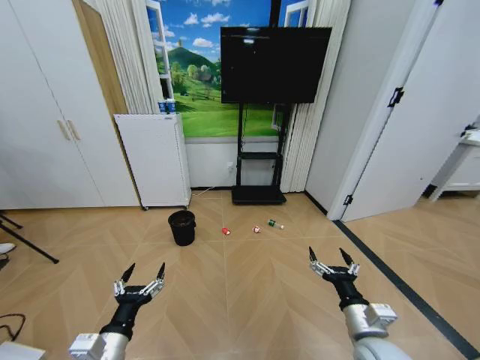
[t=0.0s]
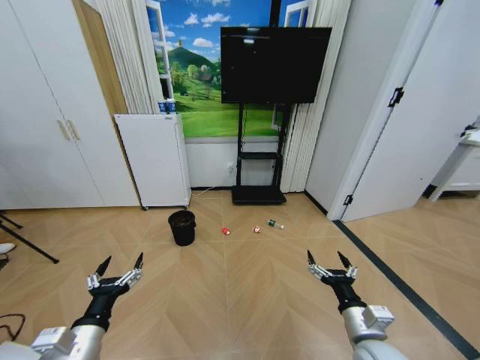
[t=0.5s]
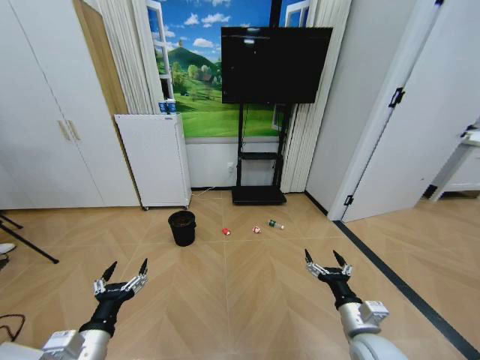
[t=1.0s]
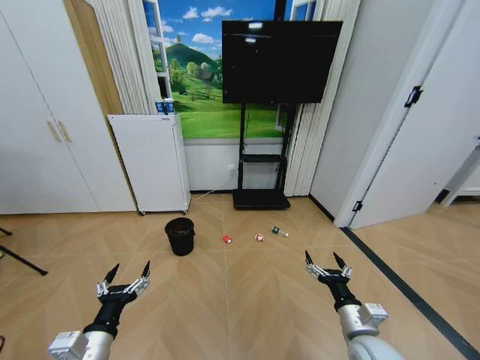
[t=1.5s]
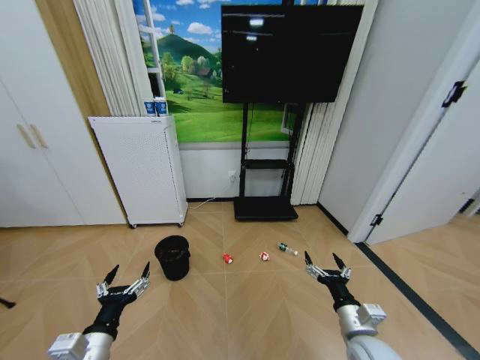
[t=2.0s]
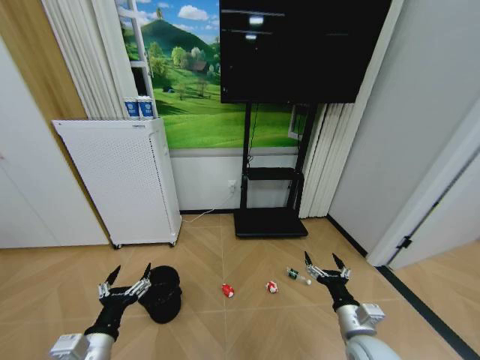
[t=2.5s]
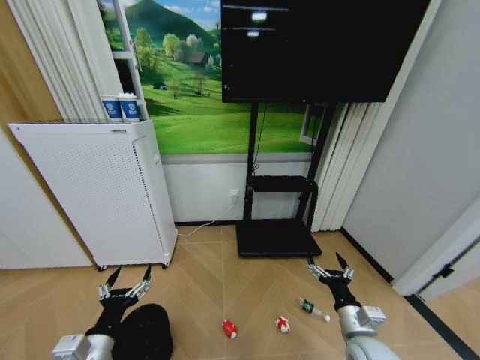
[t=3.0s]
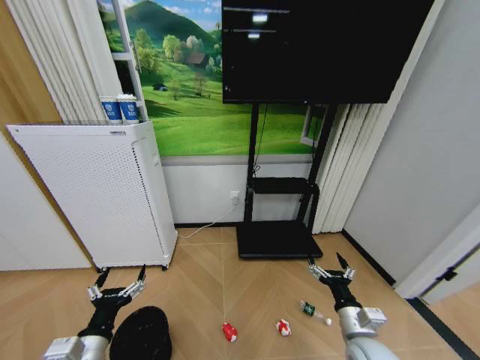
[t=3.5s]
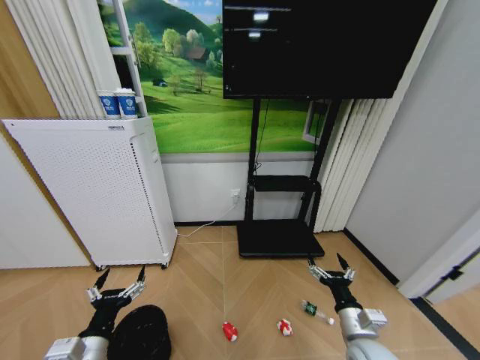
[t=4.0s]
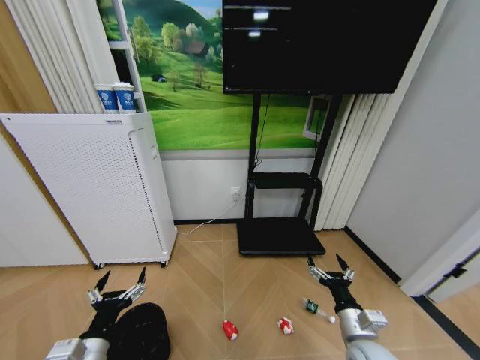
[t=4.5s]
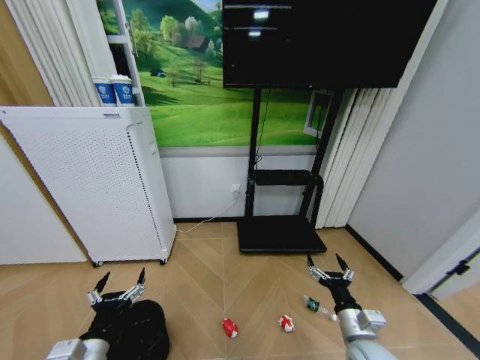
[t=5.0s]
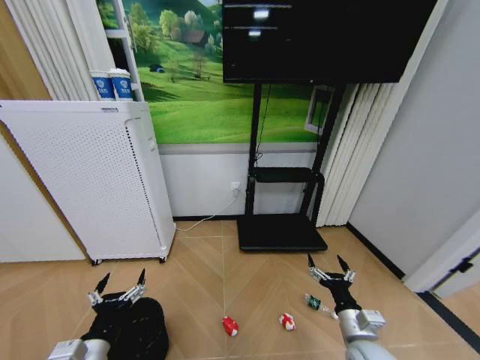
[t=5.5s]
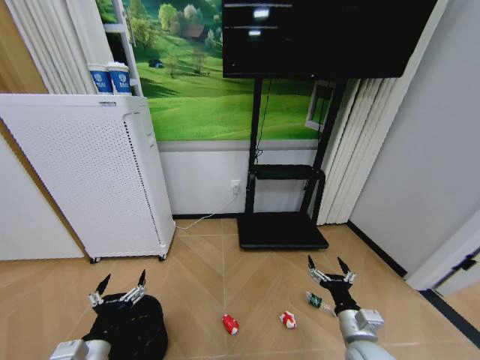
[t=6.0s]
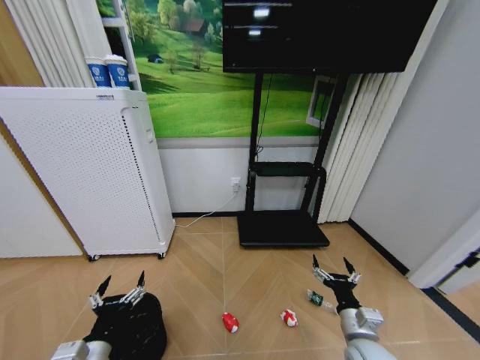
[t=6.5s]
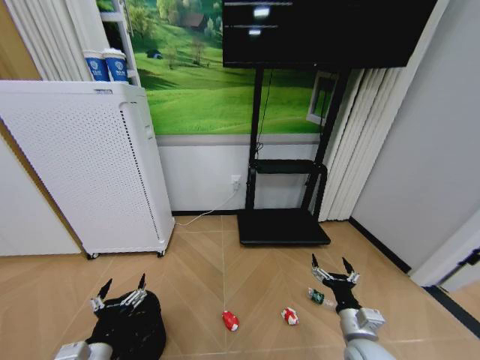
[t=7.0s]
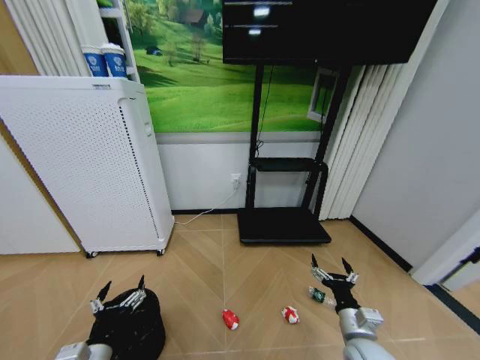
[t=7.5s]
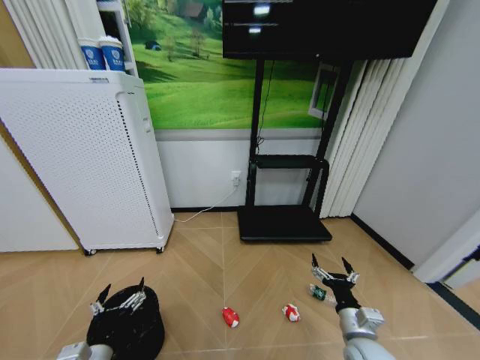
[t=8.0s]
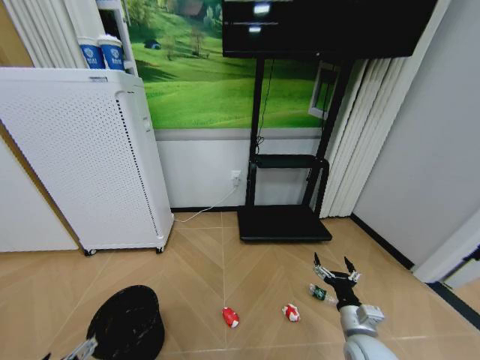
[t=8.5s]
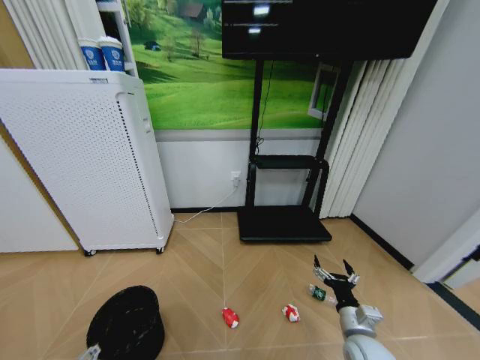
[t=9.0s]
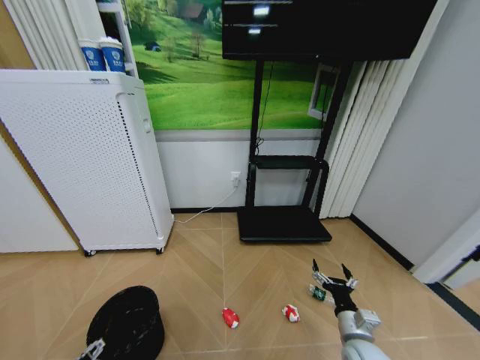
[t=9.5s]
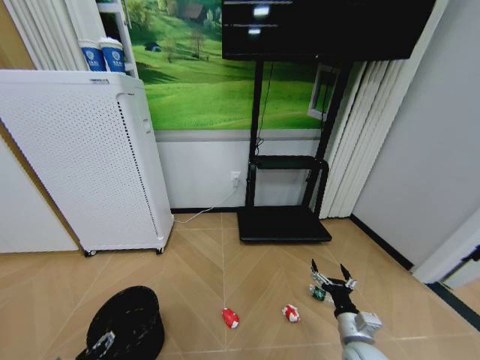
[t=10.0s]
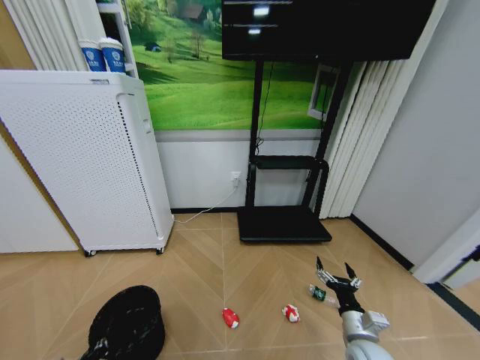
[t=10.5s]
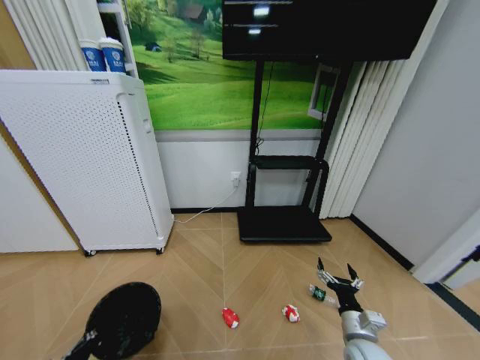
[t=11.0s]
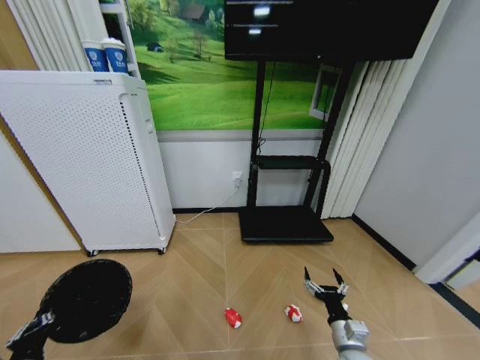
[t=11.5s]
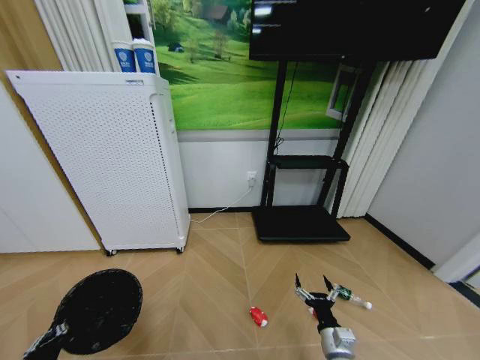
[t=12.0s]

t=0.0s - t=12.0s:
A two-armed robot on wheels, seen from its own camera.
Task of the whole recording: Pick up the trash bin and place the garbage on the floor into it.
t=8.0s - t=10.0s: The left gripper is displaced to the left and downward by roughly 10 cm.
t=10.0s - t=12.0s: The left gripper closes up; the right gripper moves roughly 5 cm.

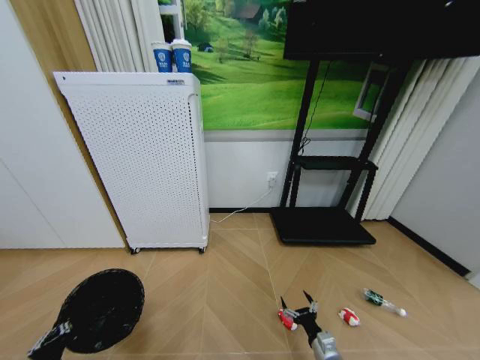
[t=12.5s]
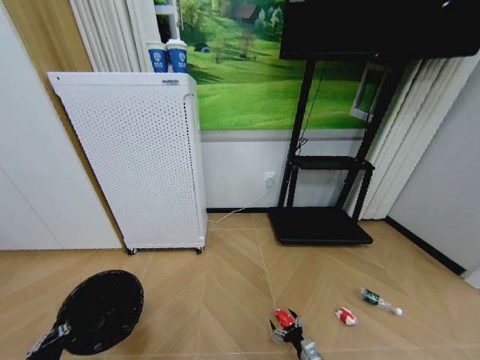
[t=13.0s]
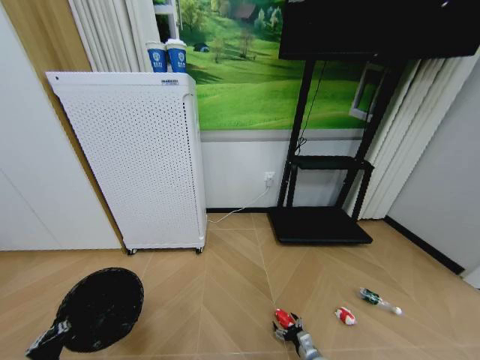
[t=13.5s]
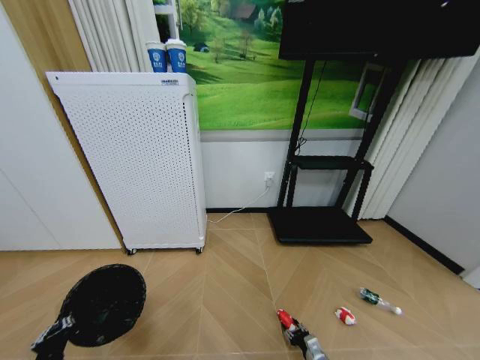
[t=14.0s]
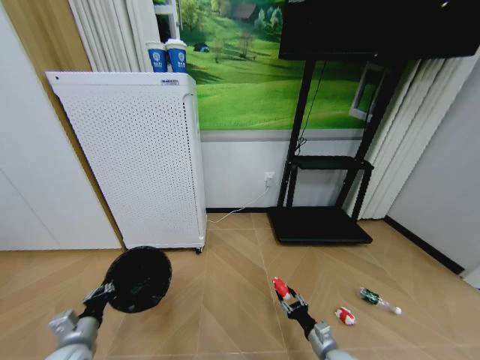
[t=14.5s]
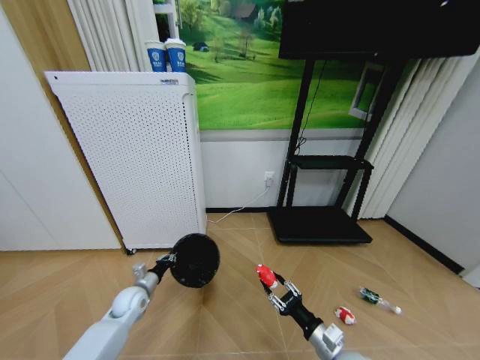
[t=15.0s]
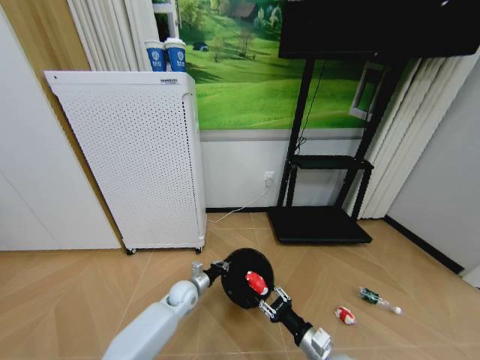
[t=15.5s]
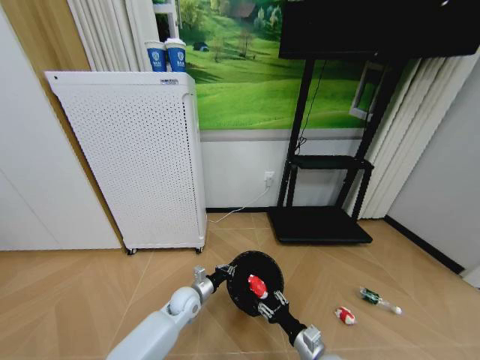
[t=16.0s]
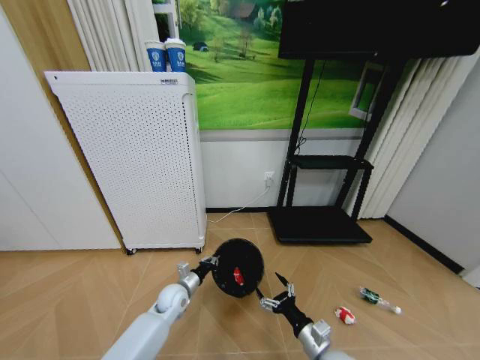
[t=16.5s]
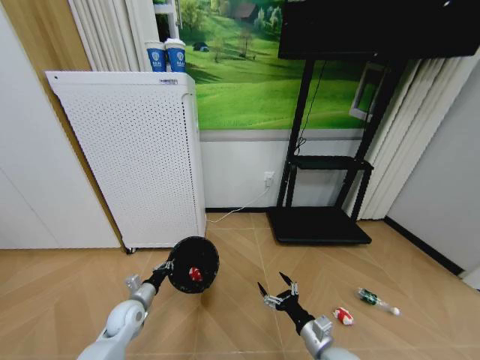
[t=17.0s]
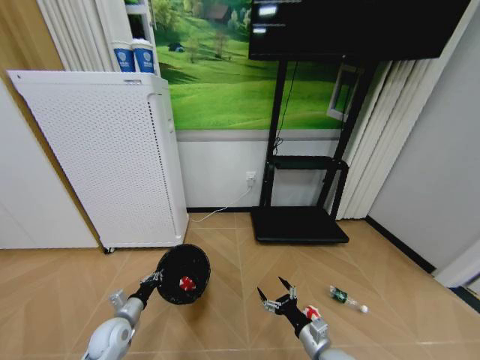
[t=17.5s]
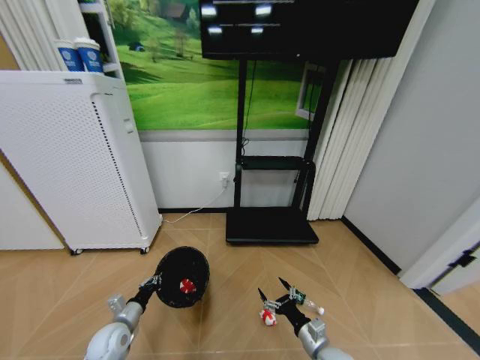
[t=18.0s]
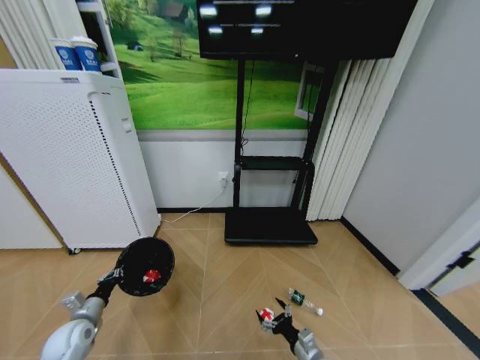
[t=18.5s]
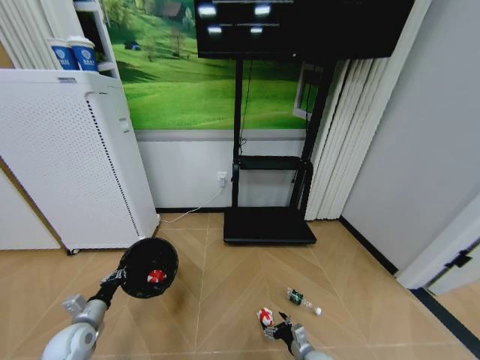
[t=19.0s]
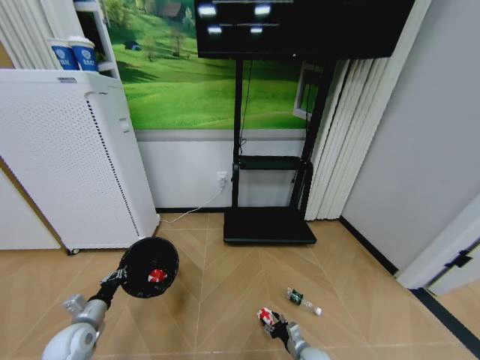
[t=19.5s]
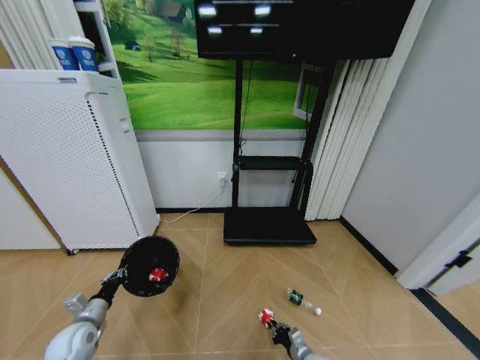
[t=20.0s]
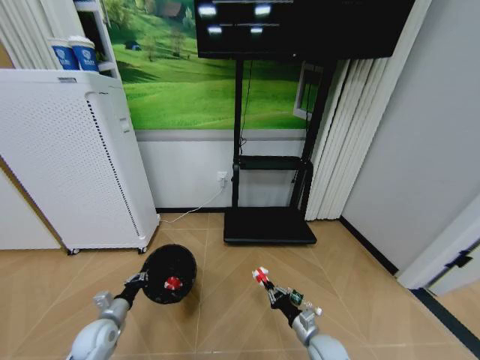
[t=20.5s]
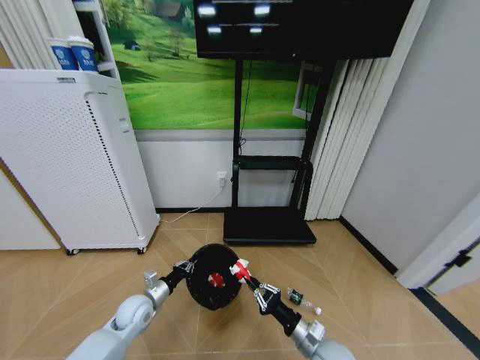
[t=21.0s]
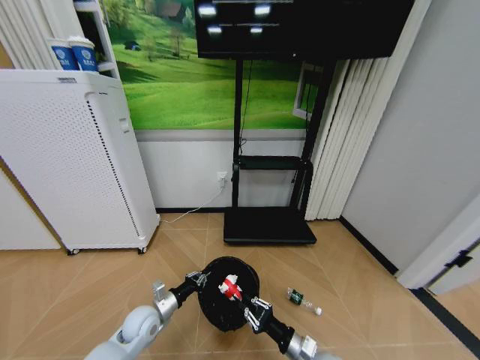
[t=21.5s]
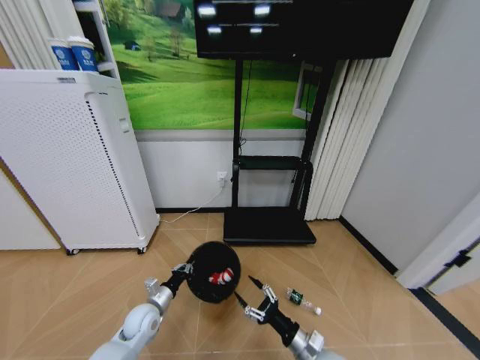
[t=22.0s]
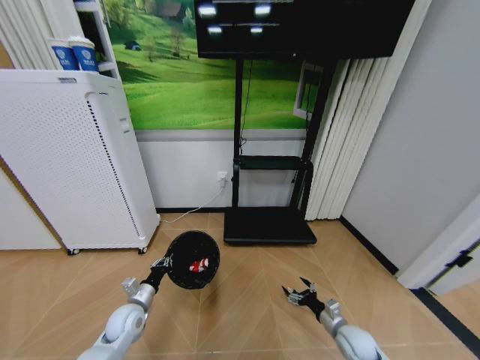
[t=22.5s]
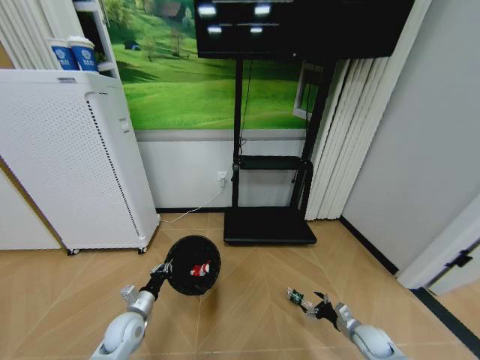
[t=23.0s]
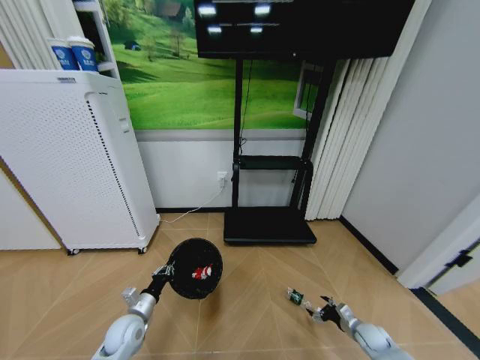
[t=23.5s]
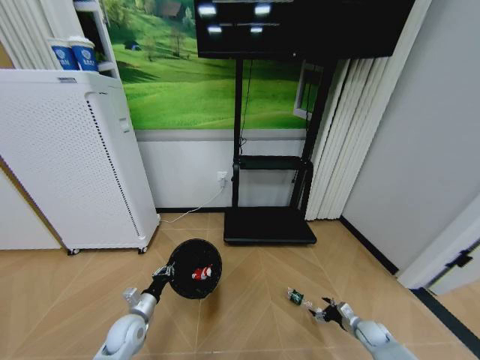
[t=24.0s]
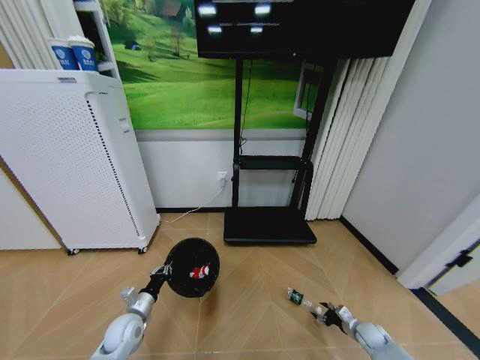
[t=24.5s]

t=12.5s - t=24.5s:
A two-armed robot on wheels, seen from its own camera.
Task of the whole recording: Pick up the trash bin and place the garbage on the floor into it.
t=12.5s - t=14.5s: The right gripper moves approximately 10 cm downward and comes back, and closes its fingers. Meanwhile the left gripper moves forward, roughly 10 cm.
t=14.5s - t=16.5s: The right gripper is displaced upward and to the left by about 10 cm, and opens its fingers; the left gripper goes approximately 25 cm to the right and forward.
t=16.5s - t=18.5s: The right gripper goes some 10 cm downward; the left gripper travels to the left and backward by roughly 30 cm.
t=18.5s - t=20.5s: The left gripper travels to the right by roughly 5 cm, while the right gripper moves forward, approximately 5 cm, travels downward and back again, some 10 cm each way, and closes its fingers.
t=20.5s - t=22.5s: The right gripper travels to the right by approximately 10 cm, and opens its fingers, while the left gripper goes about 5 cm to the right.
t=22.5s - t=24.5s: The right gripper goes about 15 cm to the right and downward.

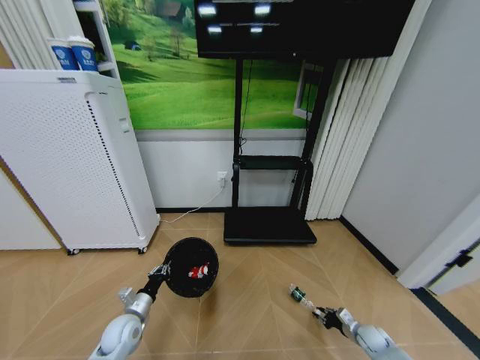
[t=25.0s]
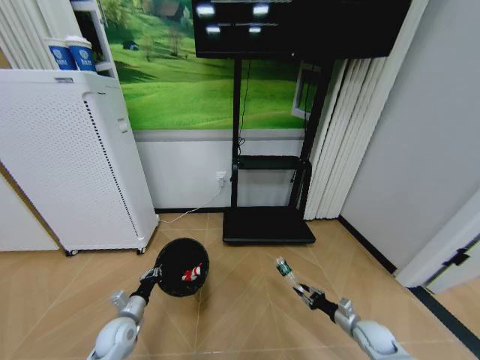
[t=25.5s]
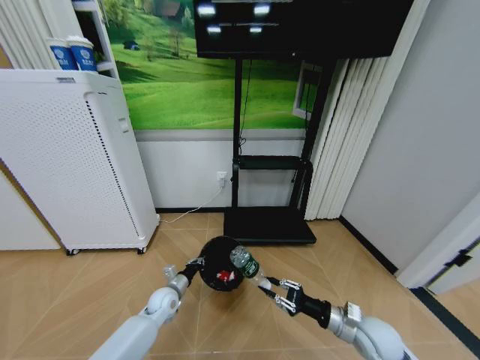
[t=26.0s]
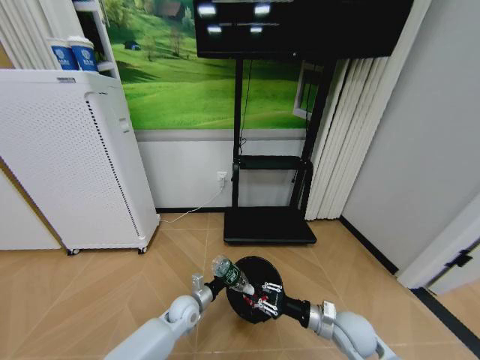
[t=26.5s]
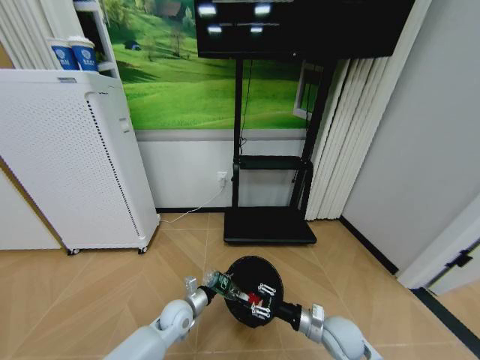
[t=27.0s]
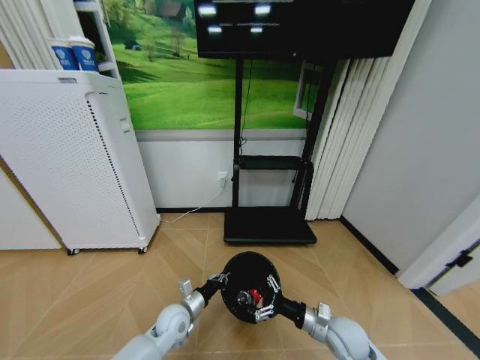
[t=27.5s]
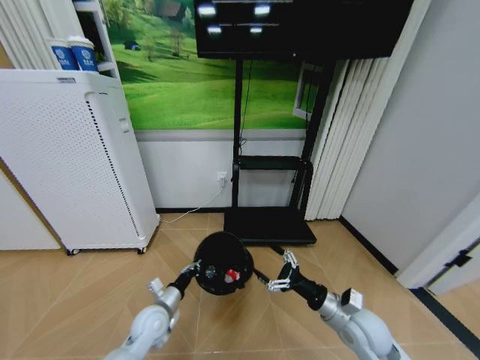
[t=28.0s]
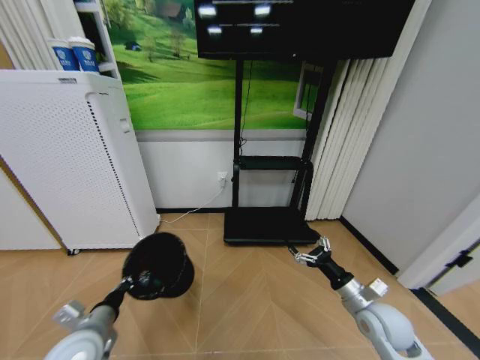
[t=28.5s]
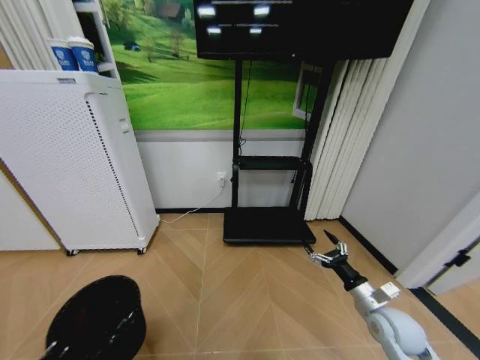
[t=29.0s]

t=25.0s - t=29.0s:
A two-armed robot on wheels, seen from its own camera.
Task of the whole recording: Pick up the trash bin and place the garbage on the floor into it.
t=25.0s - t=27.0s: The right gripper heads to the left and upward, covering about 25 cm, while the left gripper heads to the right, covering about 15 cm.
t=27.0s - t=29.0s: The left gripper travels backward, to the left and upward by approximately 35 cm. Meanwhile the right gripper shifts about 15 cm to the right and upward, and opens up.
